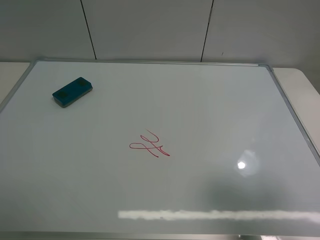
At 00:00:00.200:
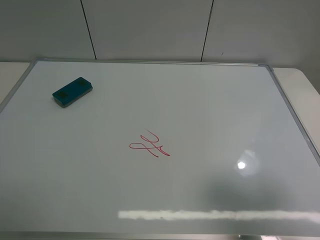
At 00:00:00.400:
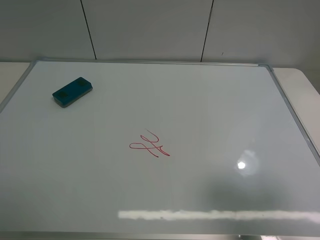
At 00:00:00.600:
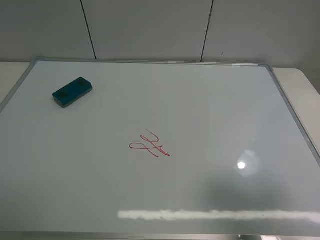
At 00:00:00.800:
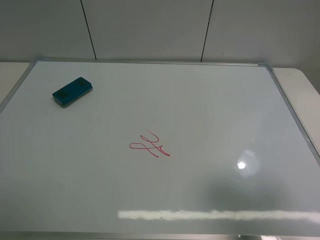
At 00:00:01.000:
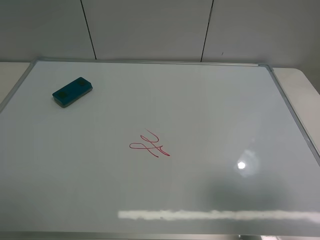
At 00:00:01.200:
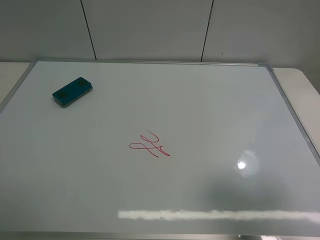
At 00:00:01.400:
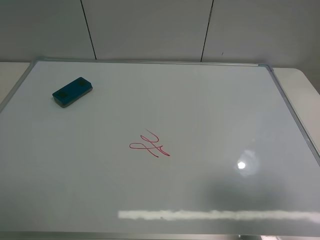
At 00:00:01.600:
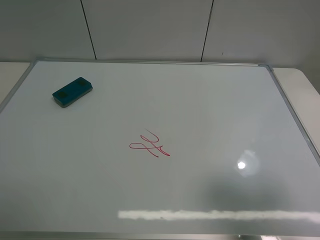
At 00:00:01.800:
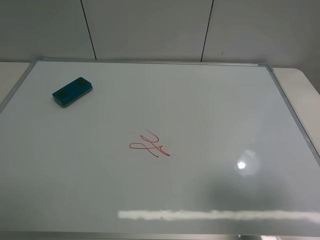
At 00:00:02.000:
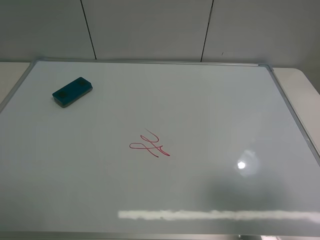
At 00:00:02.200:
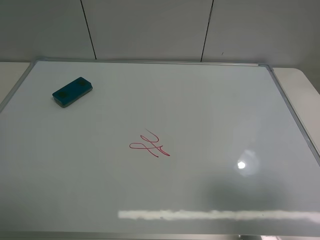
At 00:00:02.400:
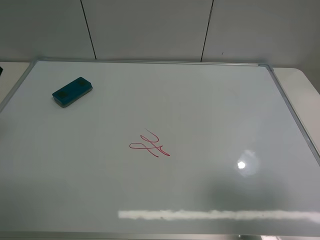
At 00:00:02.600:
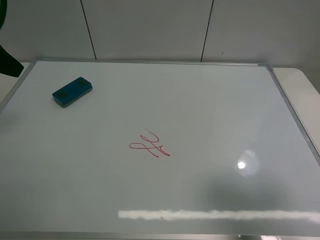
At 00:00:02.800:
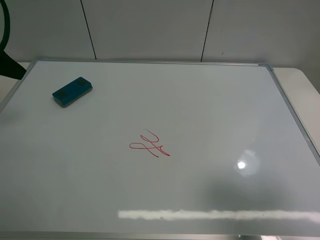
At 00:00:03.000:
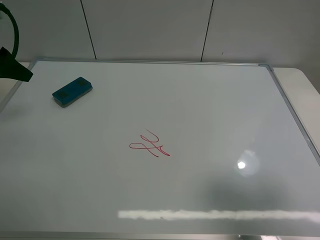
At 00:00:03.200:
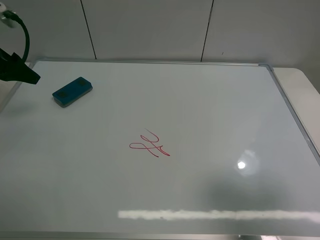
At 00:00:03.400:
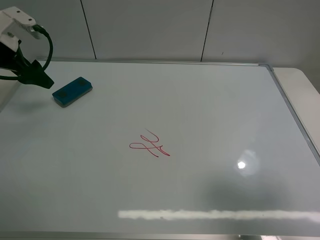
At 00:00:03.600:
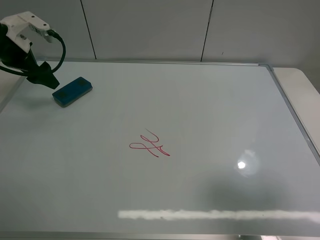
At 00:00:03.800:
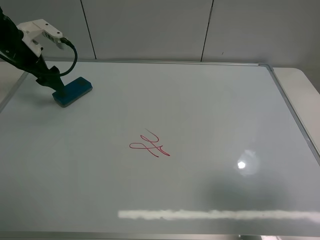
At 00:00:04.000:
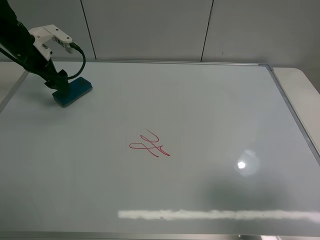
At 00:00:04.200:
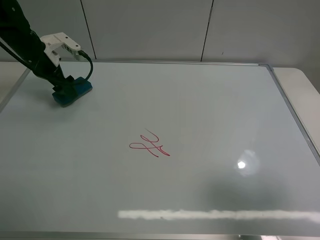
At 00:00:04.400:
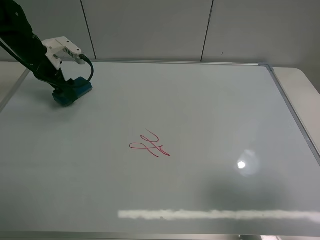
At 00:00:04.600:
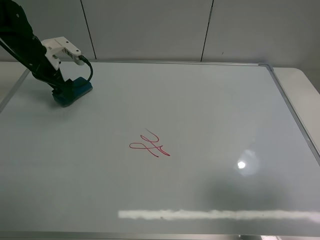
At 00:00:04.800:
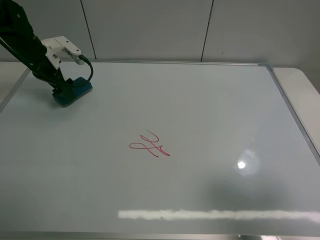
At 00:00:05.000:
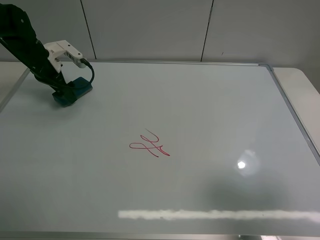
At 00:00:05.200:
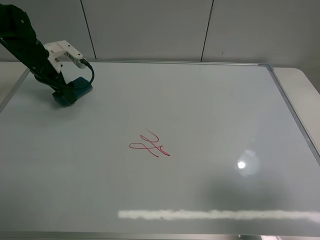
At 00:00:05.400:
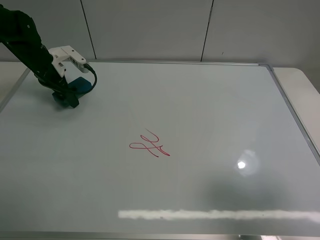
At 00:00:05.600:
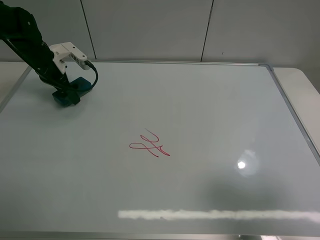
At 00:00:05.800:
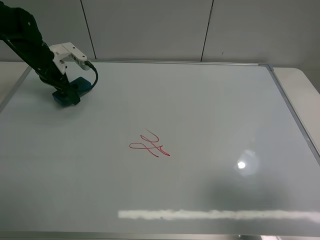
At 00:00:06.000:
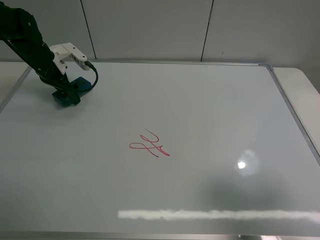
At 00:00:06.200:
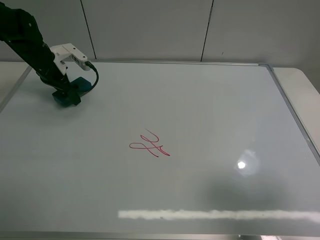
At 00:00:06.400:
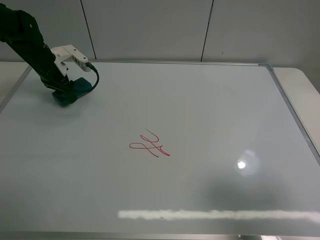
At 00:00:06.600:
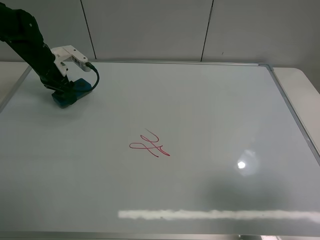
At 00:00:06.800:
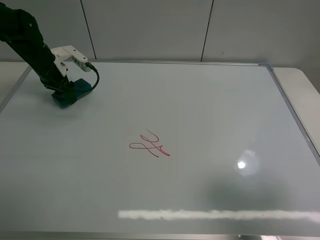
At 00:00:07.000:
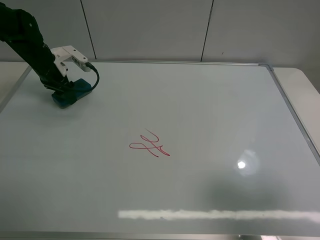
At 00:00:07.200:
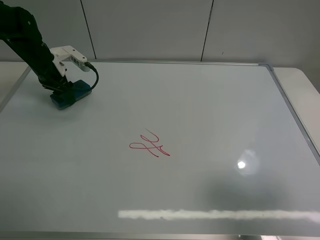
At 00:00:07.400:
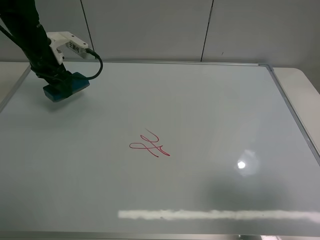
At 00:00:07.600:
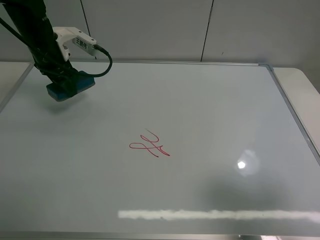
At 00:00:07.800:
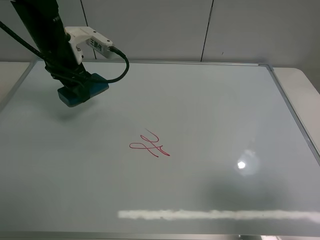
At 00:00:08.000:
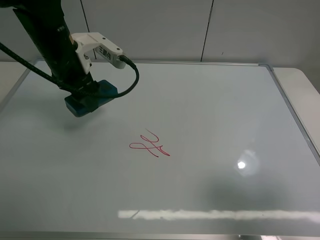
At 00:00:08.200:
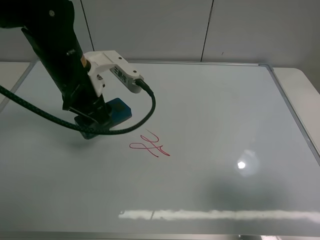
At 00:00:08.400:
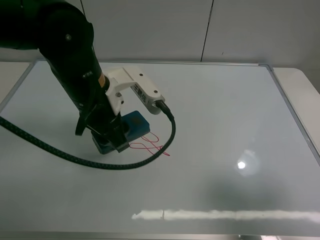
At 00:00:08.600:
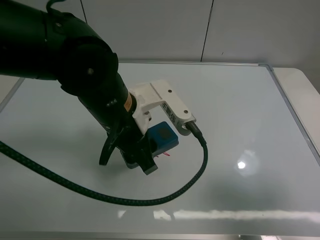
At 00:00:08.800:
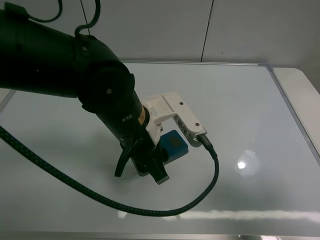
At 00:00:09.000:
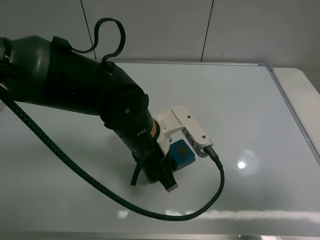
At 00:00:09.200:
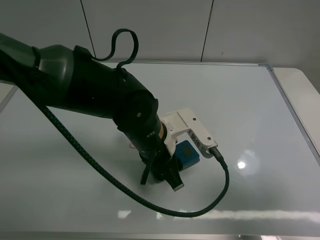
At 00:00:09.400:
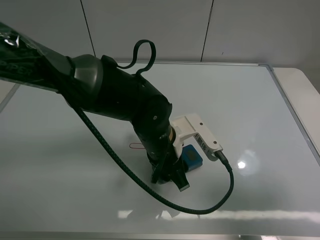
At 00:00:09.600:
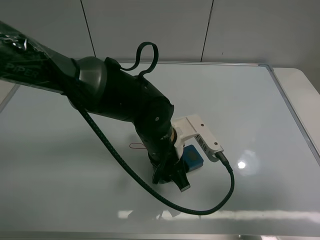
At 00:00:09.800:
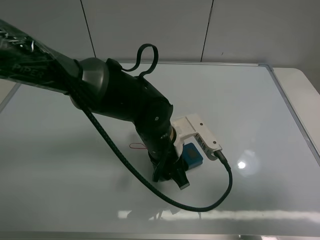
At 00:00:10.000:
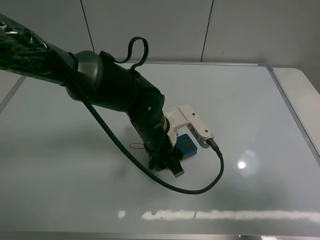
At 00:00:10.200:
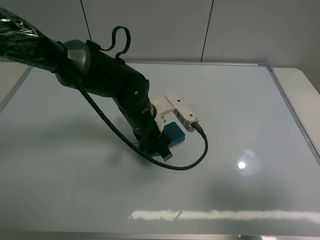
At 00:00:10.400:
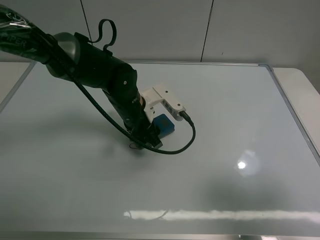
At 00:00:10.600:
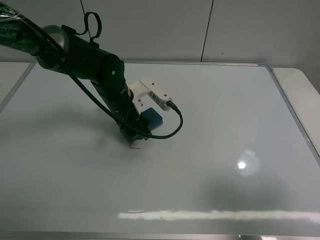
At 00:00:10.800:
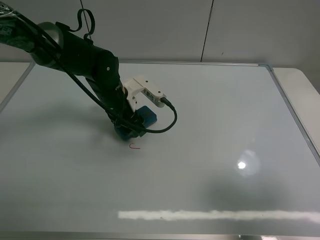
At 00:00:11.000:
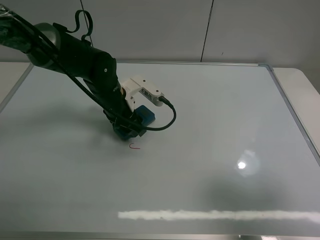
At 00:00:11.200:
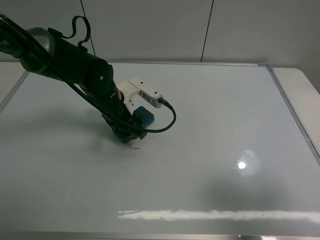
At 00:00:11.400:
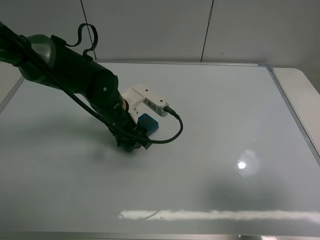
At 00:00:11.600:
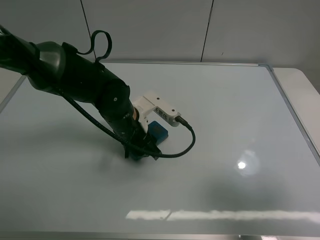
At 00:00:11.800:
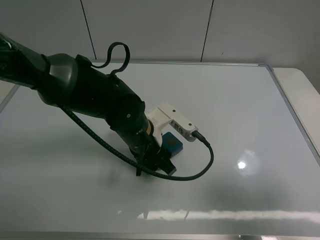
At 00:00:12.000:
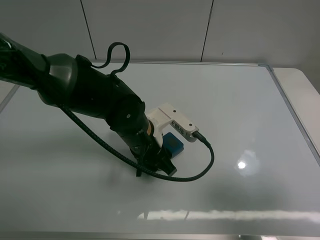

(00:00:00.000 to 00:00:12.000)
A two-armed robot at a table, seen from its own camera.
Task of the whole recording: use the left claw to pick up the whiteboard eraser, wipe the notes on the whiteboard clean, and then put them back in place.
Step, 00:00:00.000 - 00:00:06.400: Grasp the eraser with the left gripper.
00:00:01.600 - 00:00:03.000: The left gripper moves forward, some 30 cm.
00:00:03.000 - 00:00:04.400: The left gripper shifts approximately 15 cm forward, downward and to the right.
00:00:04.400 - 00:00:06.000: The grippers make only small movements.
00:00:06.000 - 00:00:07.600: The left gripper shifts approximately 10 cm upward and to the right, and closes up.
00:00:07.600 - 00:00:09.000: The left gripper travels to the right and backward by about 30 cm.
00:00:09.000 - 00:00:10.400: The left gripper shifts approximately 10 cm forward.
00:00:10.400 - 00:00:12.000: The left gripper heads backward, covering some 5 cm.

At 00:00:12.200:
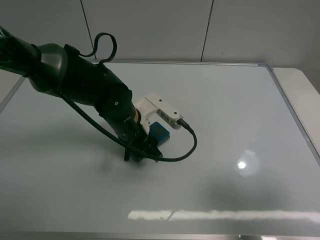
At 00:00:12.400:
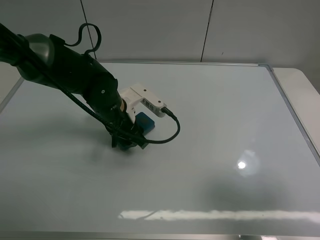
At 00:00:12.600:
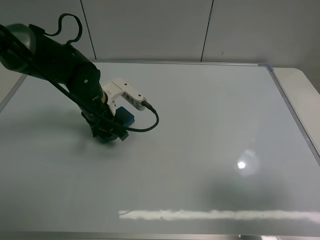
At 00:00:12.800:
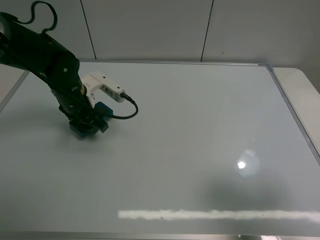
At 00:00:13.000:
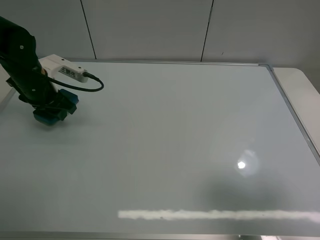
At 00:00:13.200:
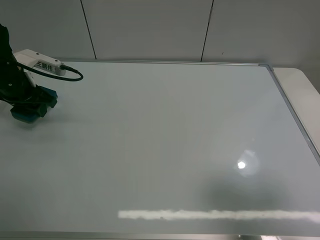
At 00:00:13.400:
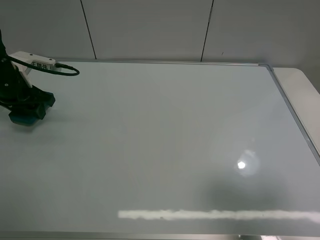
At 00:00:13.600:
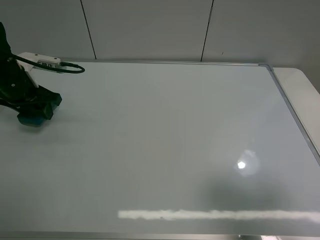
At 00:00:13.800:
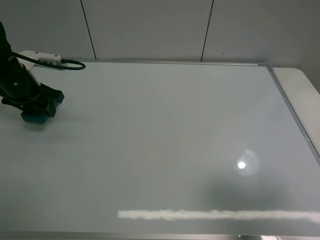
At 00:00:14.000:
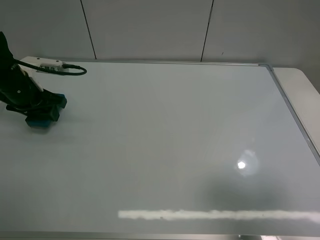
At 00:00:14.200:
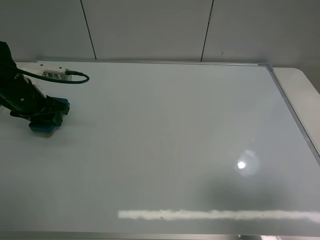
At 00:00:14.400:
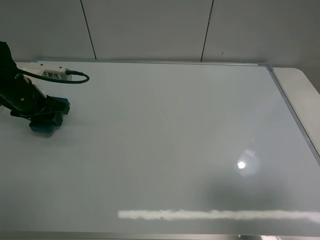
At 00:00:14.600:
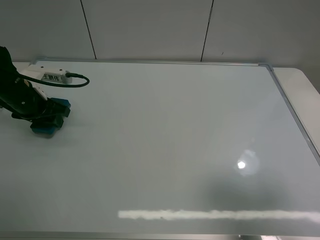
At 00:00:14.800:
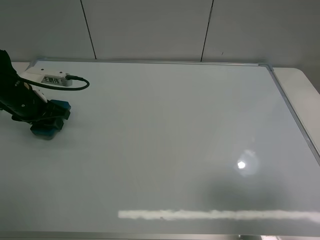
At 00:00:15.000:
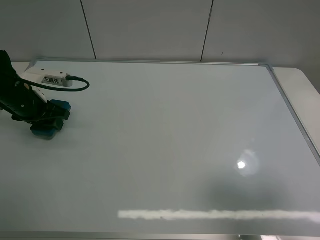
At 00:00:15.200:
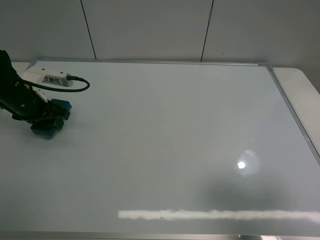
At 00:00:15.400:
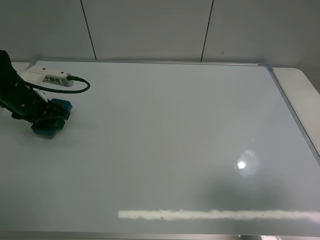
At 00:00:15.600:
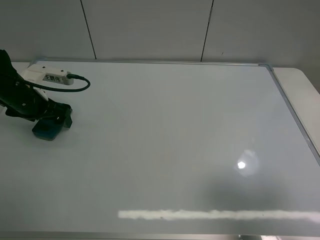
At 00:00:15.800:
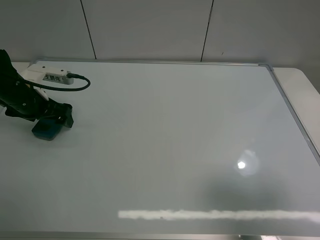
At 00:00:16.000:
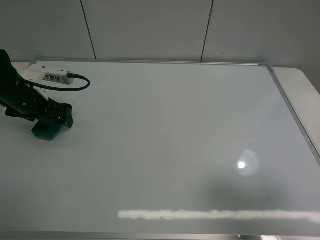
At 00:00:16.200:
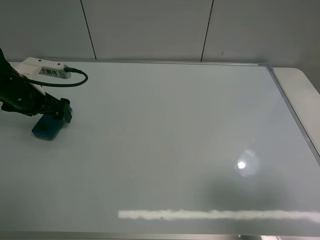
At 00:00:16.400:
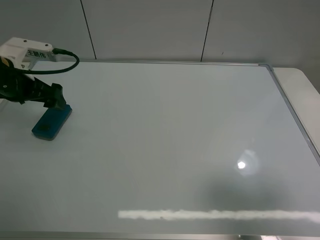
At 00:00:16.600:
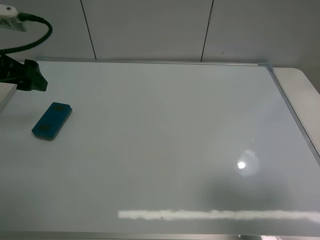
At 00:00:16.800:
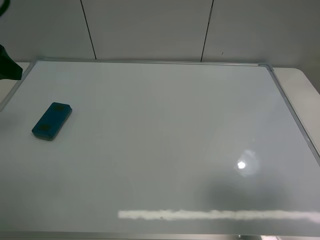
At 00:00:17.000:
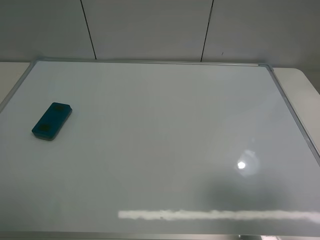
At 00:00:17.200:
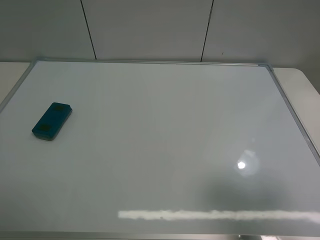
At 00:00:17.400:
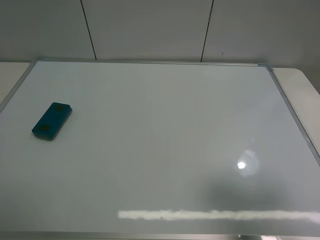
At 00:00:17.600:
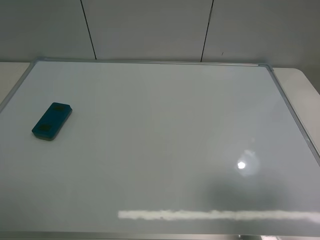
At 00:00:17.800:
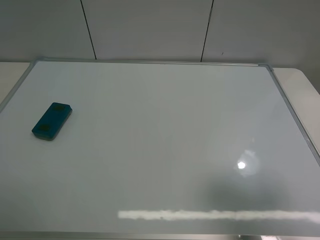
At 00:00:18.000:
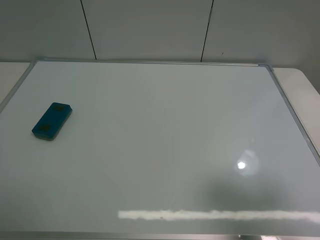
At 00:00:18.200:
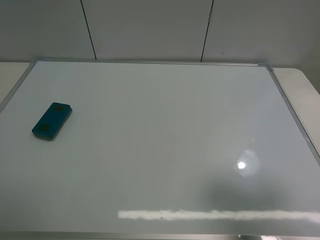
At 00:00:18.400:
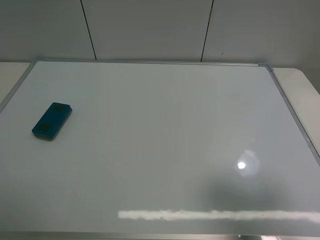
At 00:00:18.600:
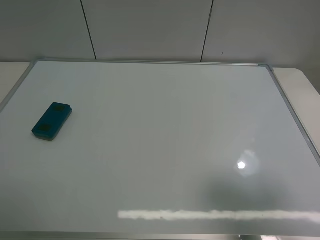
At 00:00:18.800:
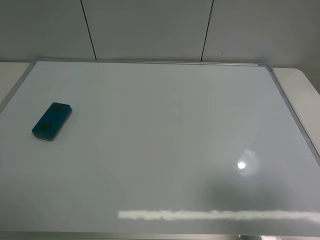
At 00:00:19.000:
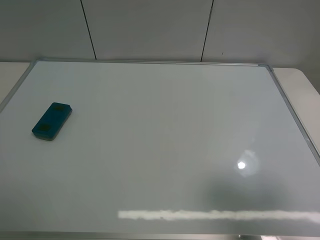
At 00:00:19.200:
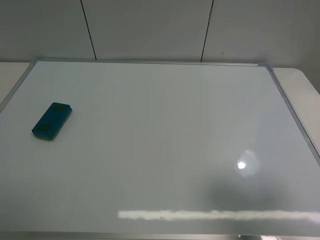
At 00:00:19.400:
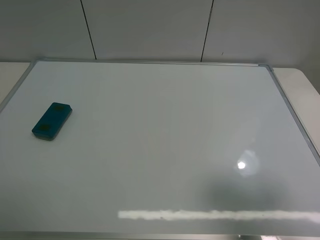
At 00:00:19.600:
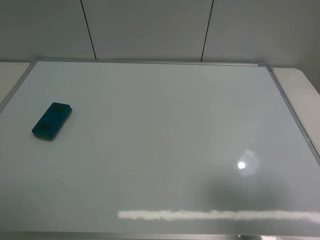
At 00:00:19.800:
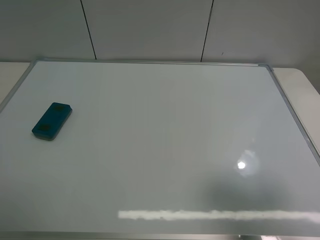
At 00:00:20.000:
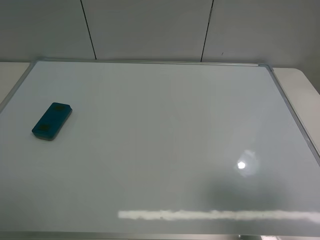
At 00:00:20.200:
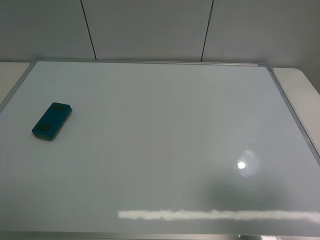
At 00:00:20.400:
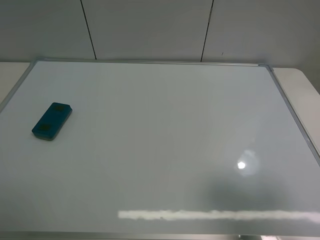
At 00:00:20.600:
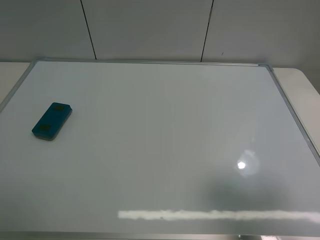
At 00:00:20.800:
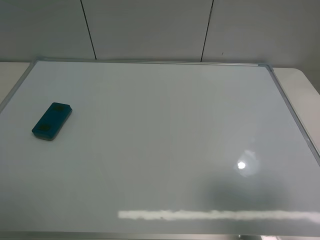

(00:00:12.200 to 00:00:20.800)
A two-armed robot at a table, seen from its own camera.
Task of the whole recording: use the left claw to pick up the whiteboard eraser, wipe the notes on the whiteboard clean, and then put them back in place.
Step, 00:00:12.800 - 00:00:15.600: Place the eraser with the left gripper.
00:00:12.200 - 00:00:13.600: The left gripper moves to the left, about 20 cm.
00:00:13.600 - 00:00:15.000: The grippers stay close to where they were, moving slightly.
00:00:15.000 - 00:00:16.600: The left gripper moves upward and backward, roughly 15 cm, and opens its fingers.
00:00:16.600 - 00:00:18.000: The left gripper goes approximately 30 cm backward.
00:00:19.400 - 00:00:20.800: Neither gripper changes place.
